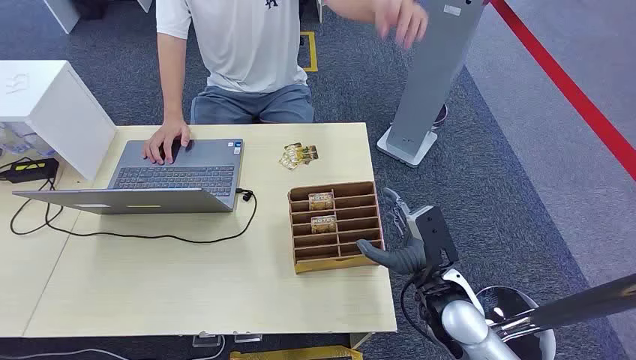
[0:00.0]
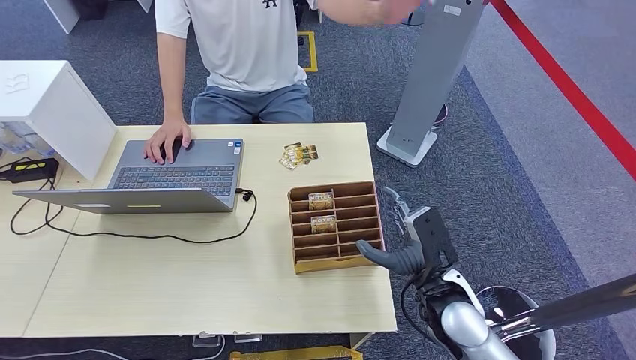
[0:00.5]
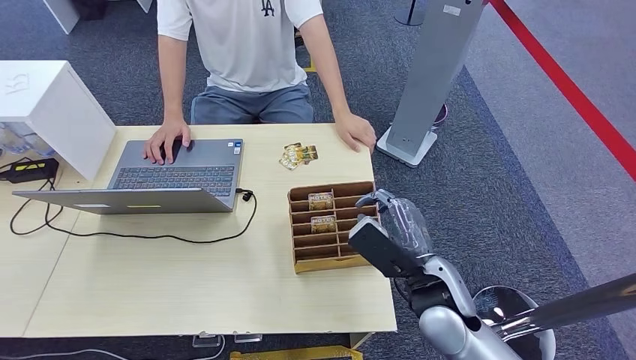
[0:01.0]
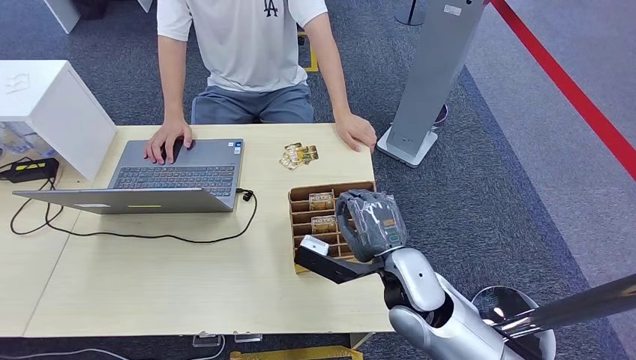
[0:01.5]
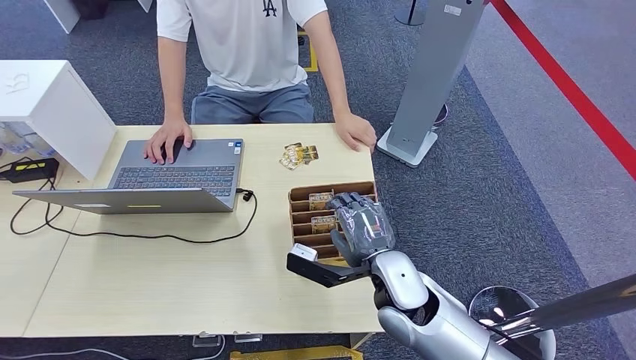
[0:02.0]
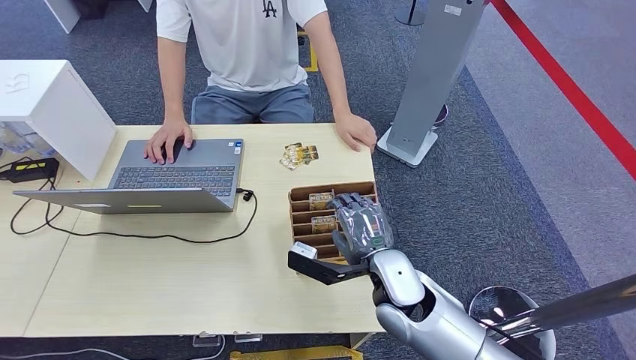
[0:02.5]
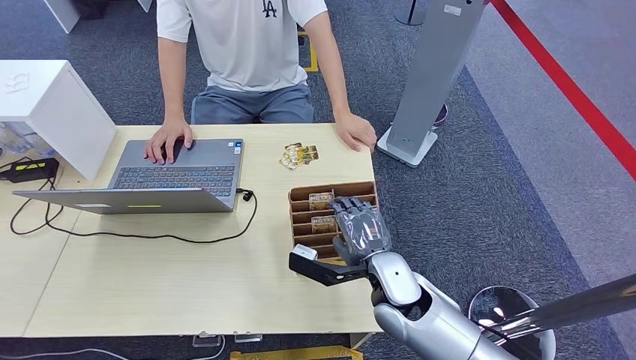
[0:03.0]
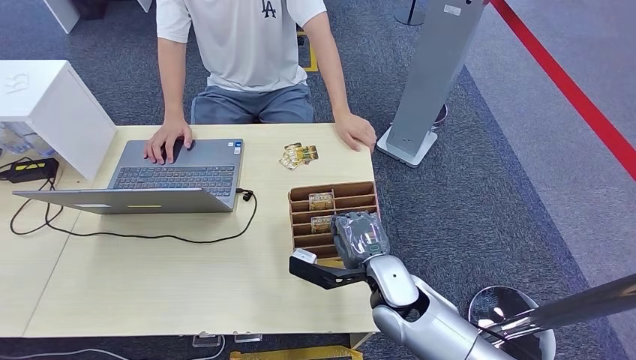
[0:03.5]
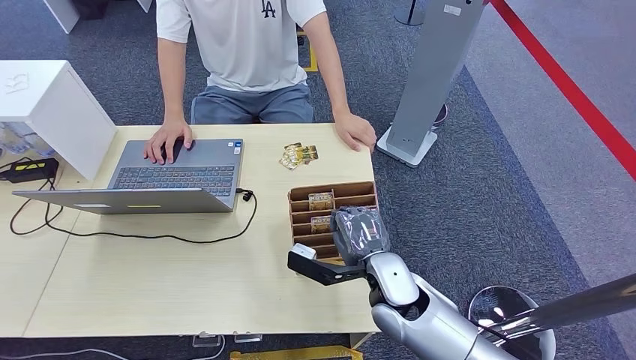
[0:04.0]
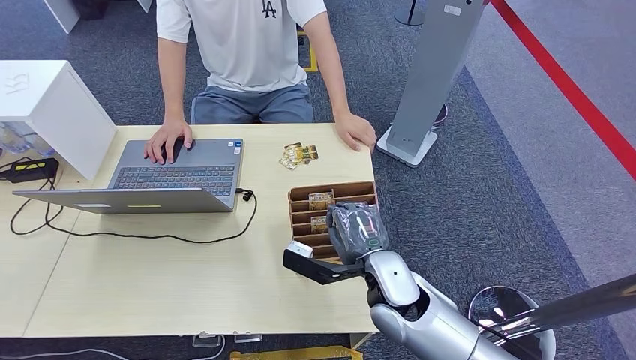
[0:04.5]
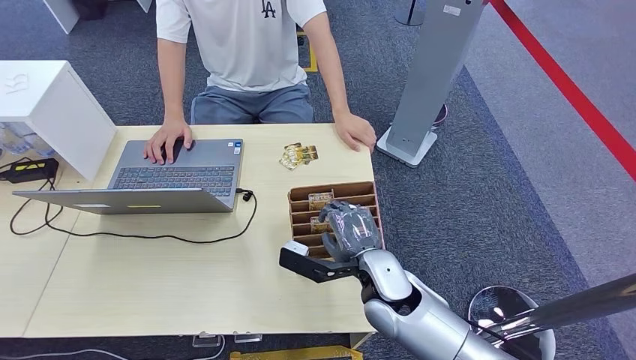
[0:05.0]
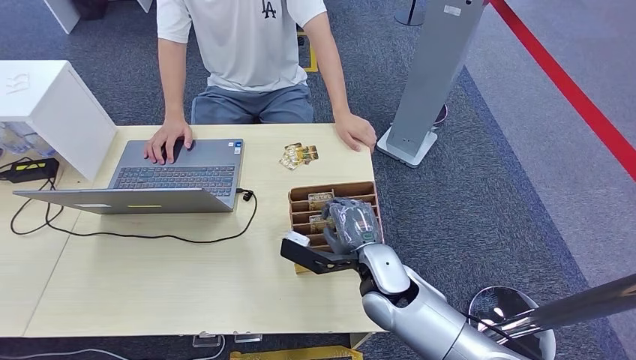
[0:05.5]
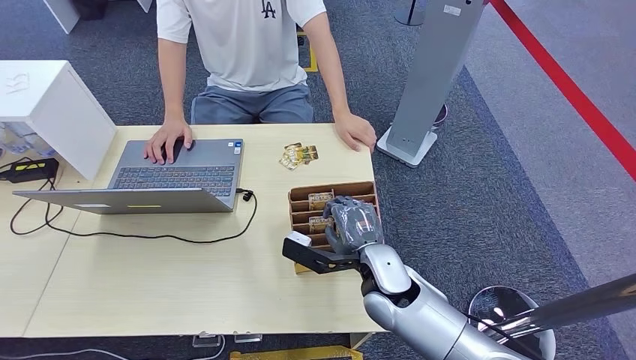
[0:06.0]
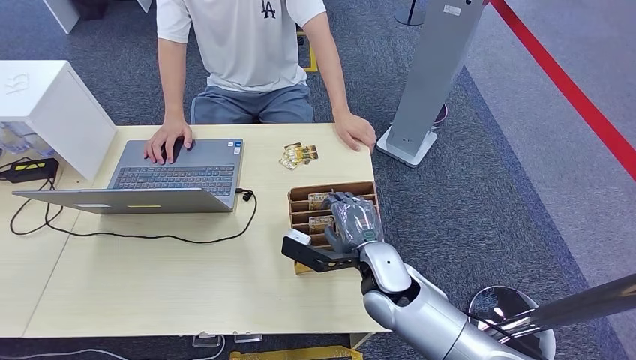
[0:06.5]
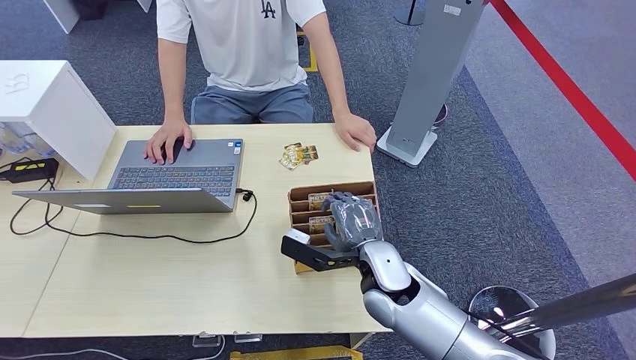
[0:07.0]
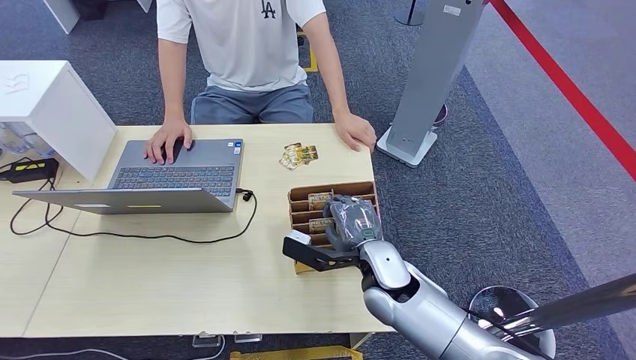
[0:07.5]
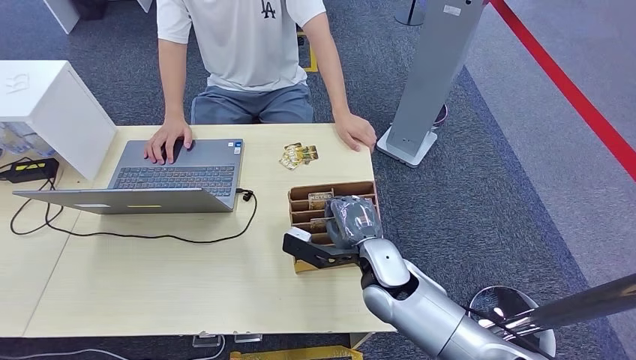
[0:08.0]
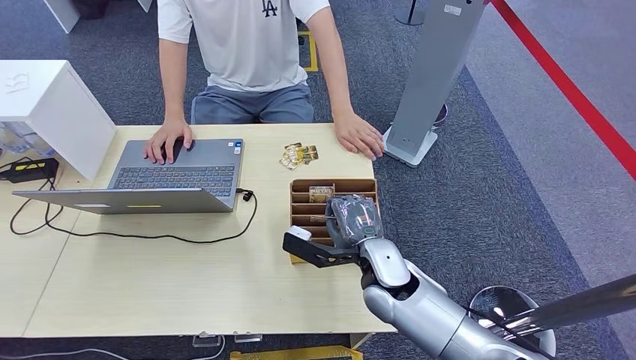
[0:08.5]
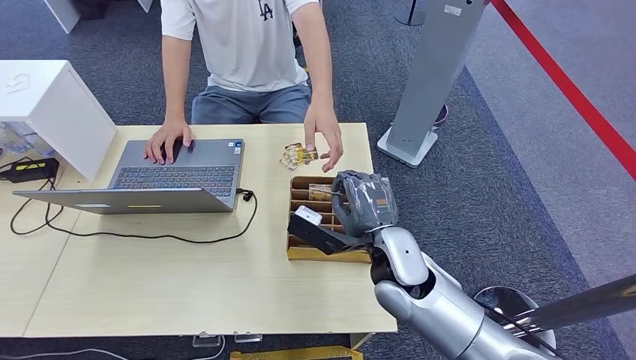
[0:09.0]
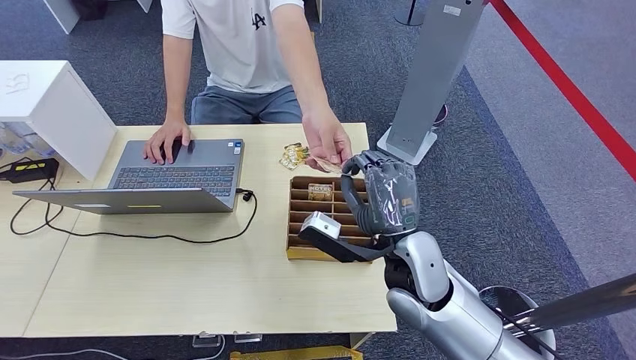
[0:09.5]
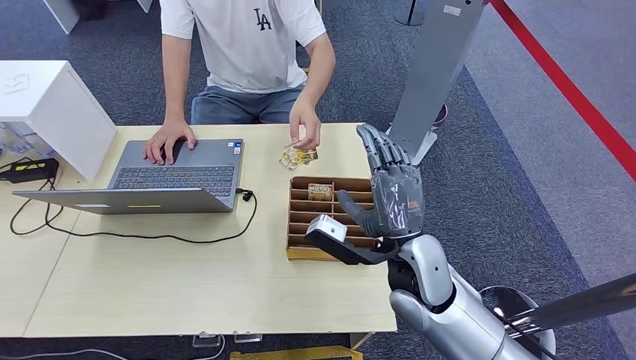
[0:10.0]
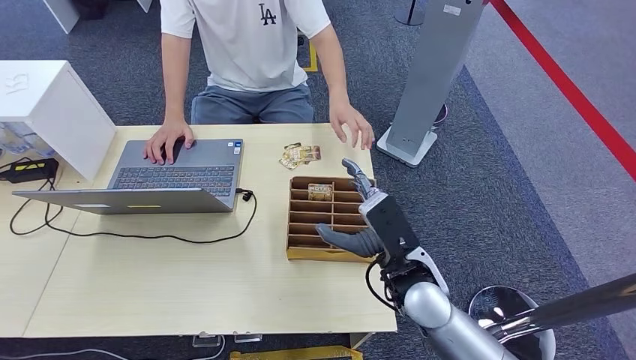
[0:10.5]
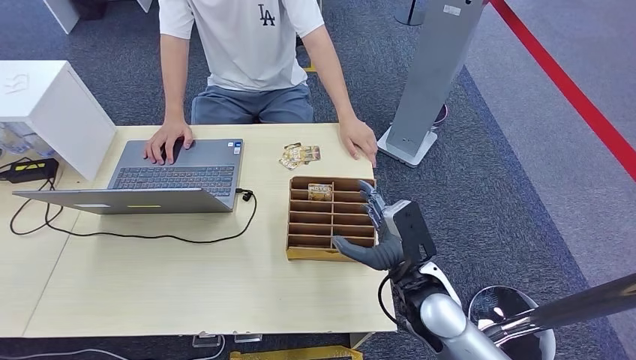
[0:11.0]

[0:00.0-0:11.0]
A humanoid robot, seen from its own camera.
Step, 0:00.0 to 0:08.5: Pick up the room card from the card holder.
Step, 0:09.0 to 0:11.0: Hand the room card to the target.
0:02.0 to 0:05.5: The hands stay close to where they were, moving slightly.
0:05.5 to 0:07.5: Neither hand changes place.
0:07.5 to 0:09.0: The right hand goes roughly 5 cm upward.
0:09.0 to 0:11.0: The right hand goes approximately 5 cm to the right.
